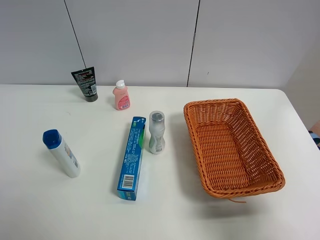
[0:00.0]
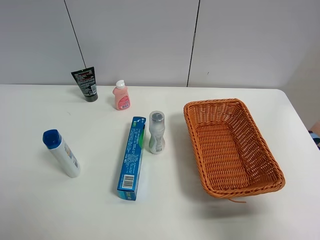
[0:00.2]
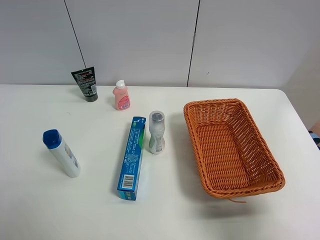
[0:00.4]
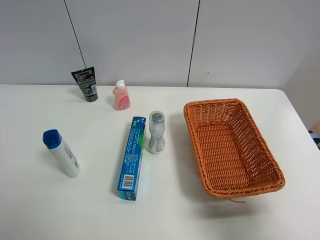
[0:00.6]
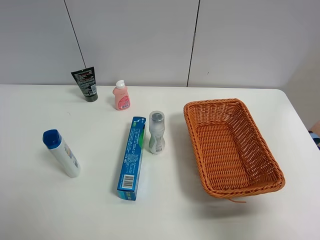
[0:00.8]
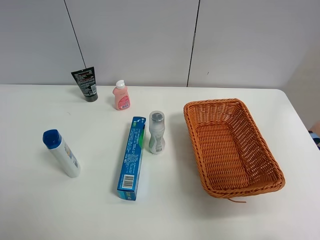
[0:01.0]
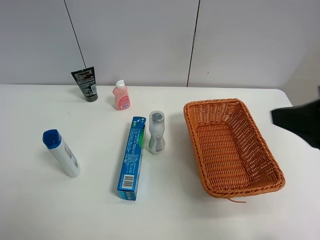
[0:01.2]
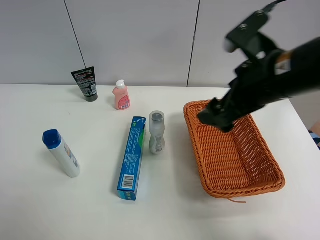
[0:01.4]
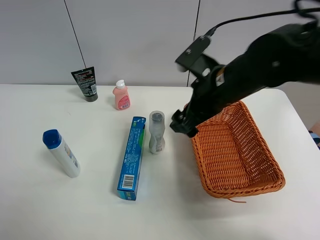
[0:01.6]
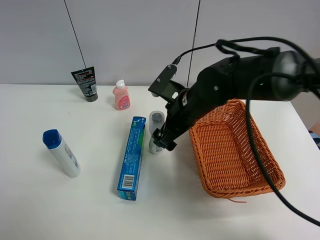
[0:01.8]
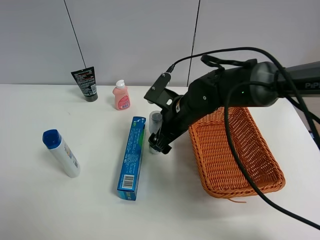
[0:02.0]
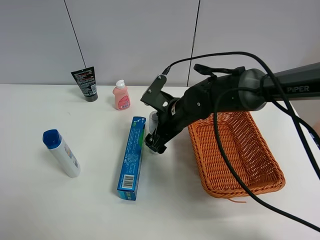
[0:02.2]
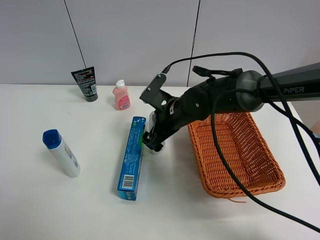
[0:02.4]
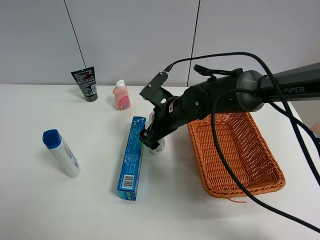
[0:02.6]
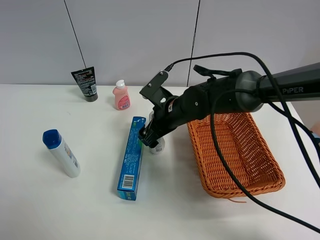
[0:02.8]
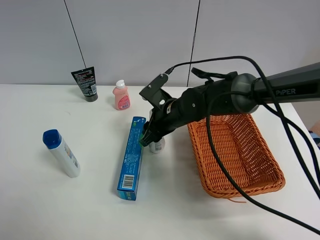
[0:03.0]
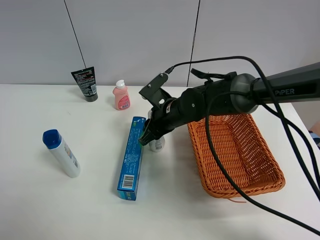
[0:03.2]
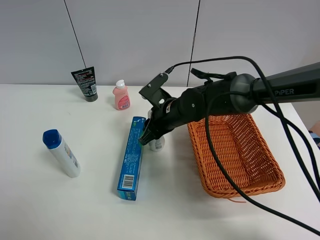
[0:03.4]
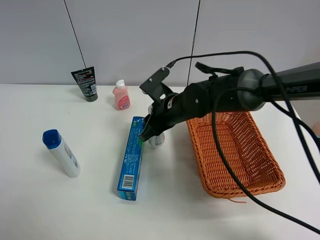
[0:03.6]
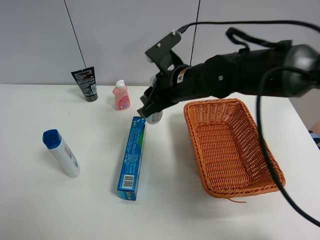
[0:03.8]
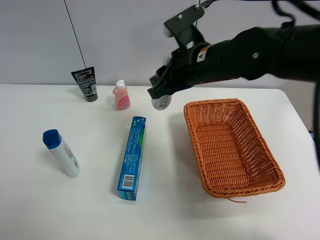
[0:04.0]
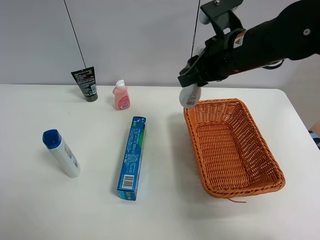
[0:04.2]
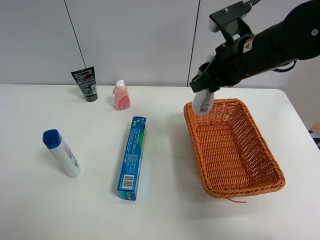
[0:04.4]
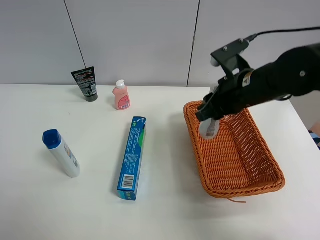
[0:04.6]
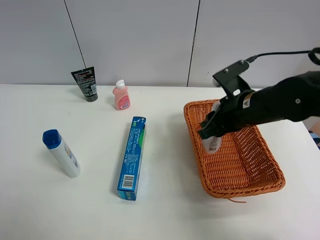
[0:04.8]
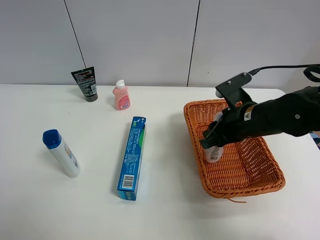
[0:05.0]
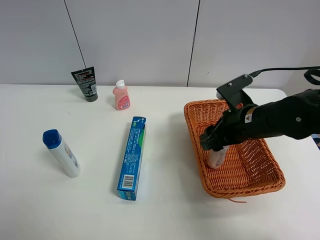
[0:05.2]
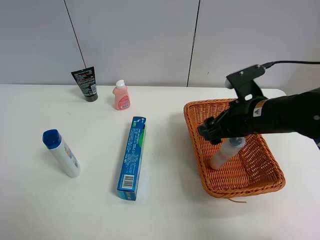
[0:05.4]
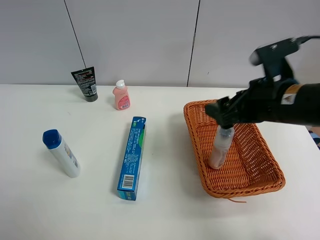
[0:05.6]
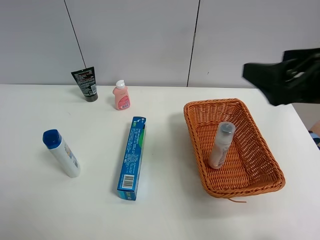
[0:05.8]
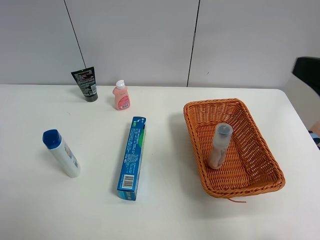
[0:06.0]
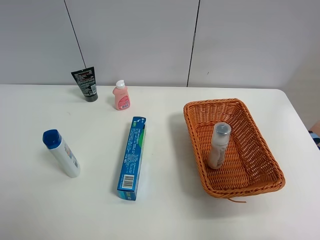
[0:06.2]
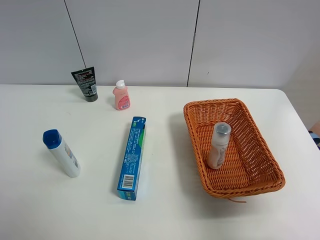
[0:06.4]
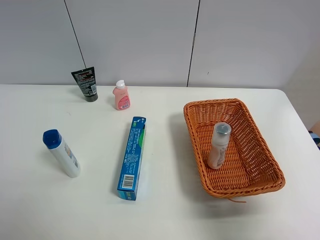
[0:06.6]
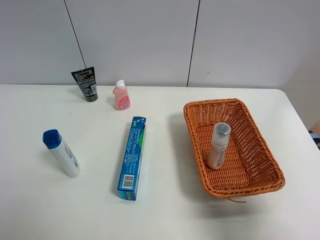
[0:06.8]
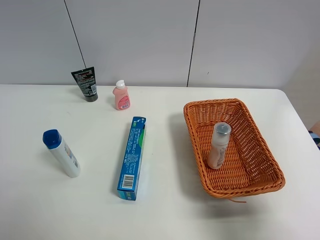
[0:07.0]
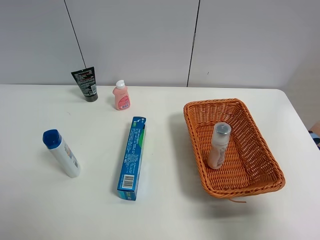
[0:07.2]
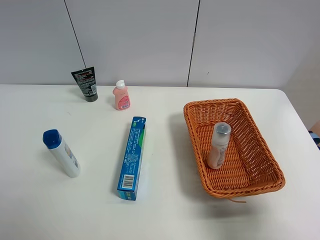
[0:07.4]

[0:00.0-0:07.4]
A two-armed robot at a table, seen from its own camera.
Task of the whole recording: Place the object closest to the toothpaste in the basket.
Step, 0:00.0 to 0:03.2: Grasp the cleaning agent with right gripper.
Step, 0:03.4 to 0:05.6: Place the cleaning agent in the basket with right gripper.
0:00.0 to 0:01.4: The right gripper travels forward and to the left by roughly 30 cm.
0:01.4 to 0:03.0: The right gripper goes roughly 20 cm downward, to the left and forward, and closes its fingers.
0:03.0 to 0:04.4: The right gripper moves upward and to the right, some 20 cm.
0:04.4 to 0:06.0: The right gripper travels backward and to the right by approximately 20 cm, and opens.
0:06.0 to 0:07.4: The right gripper is displaced backward and downward by some 15 cm.
